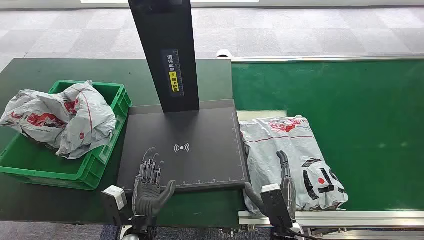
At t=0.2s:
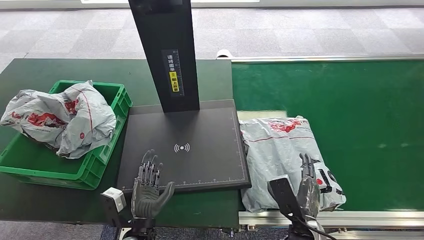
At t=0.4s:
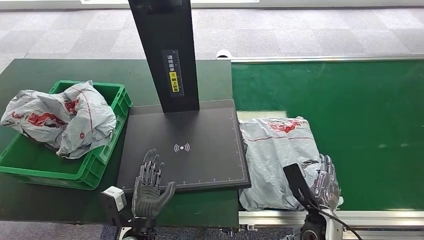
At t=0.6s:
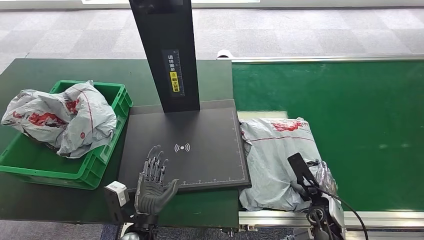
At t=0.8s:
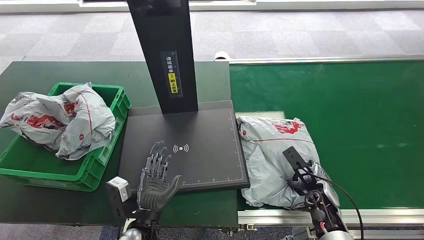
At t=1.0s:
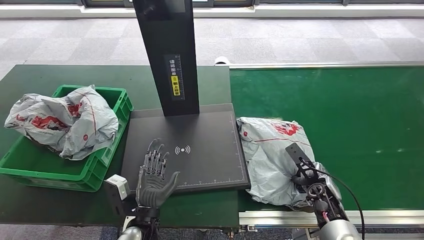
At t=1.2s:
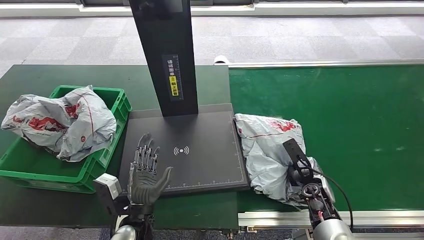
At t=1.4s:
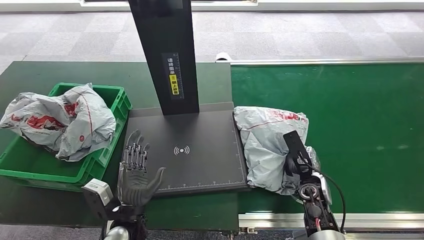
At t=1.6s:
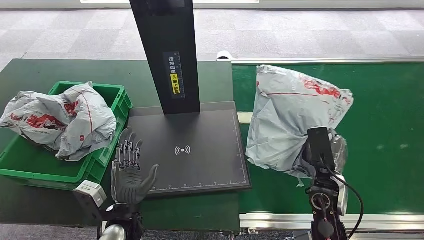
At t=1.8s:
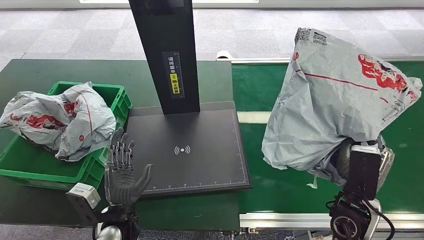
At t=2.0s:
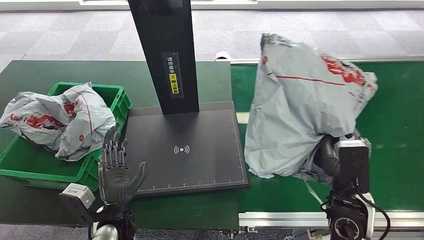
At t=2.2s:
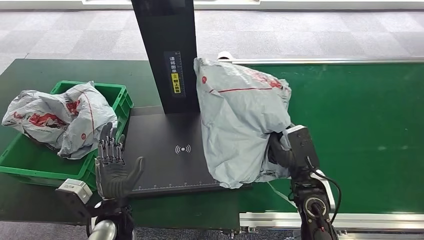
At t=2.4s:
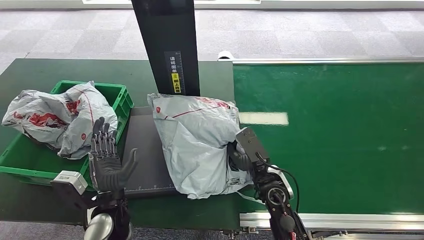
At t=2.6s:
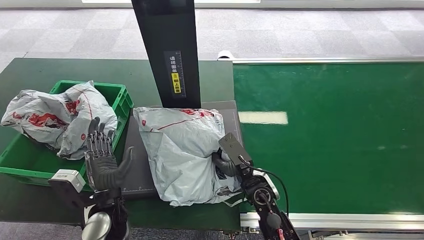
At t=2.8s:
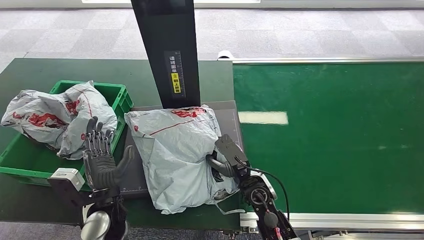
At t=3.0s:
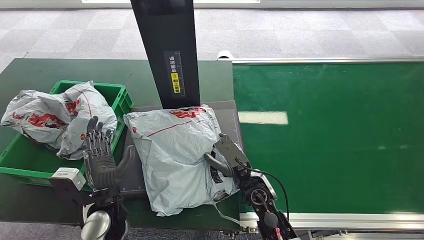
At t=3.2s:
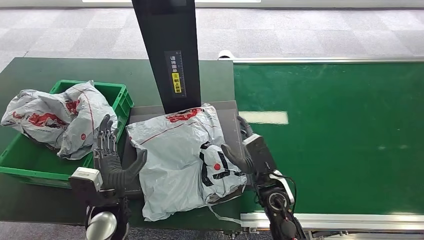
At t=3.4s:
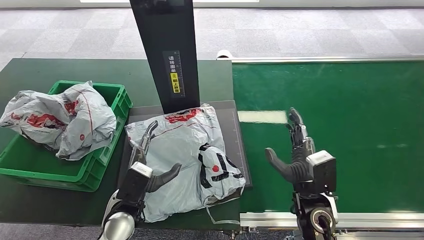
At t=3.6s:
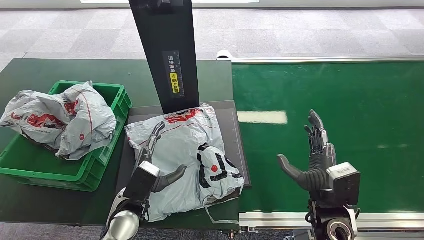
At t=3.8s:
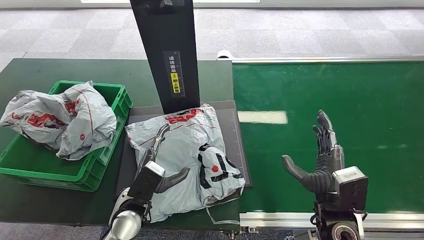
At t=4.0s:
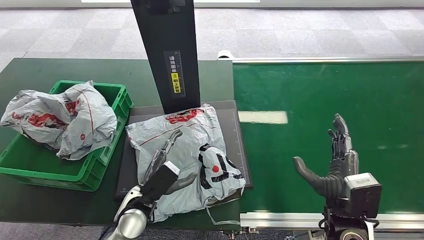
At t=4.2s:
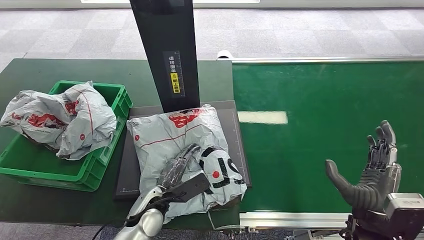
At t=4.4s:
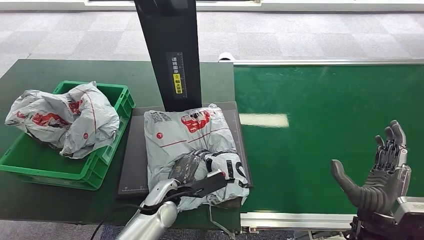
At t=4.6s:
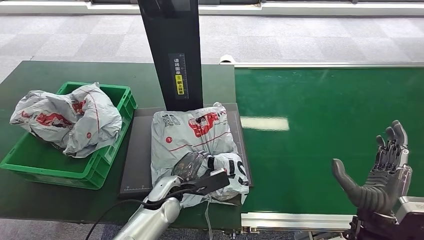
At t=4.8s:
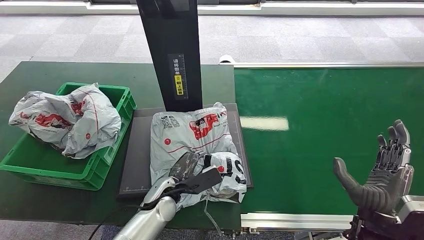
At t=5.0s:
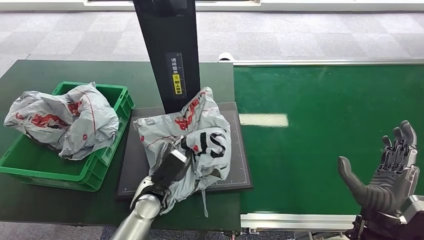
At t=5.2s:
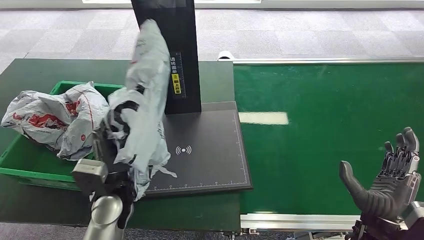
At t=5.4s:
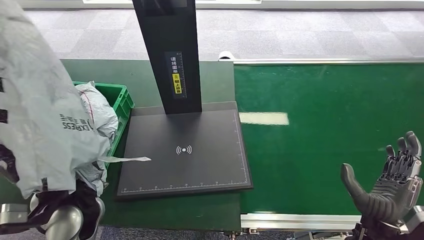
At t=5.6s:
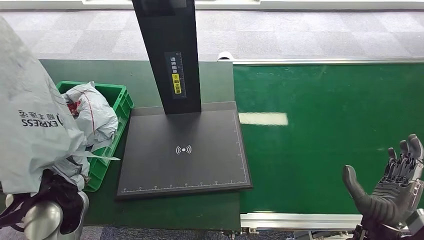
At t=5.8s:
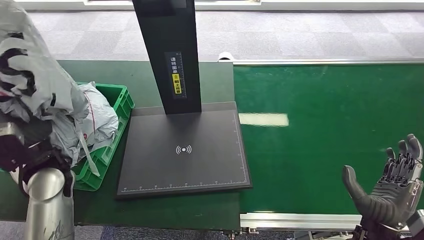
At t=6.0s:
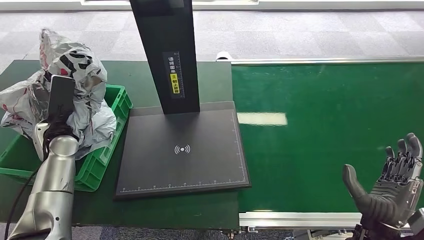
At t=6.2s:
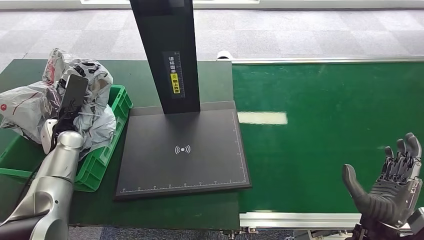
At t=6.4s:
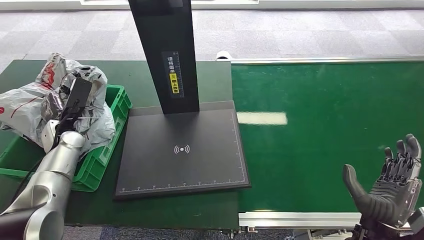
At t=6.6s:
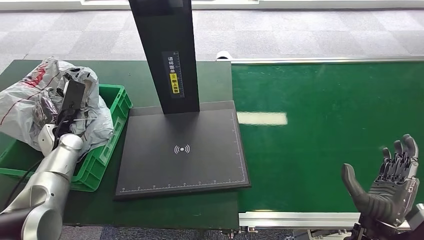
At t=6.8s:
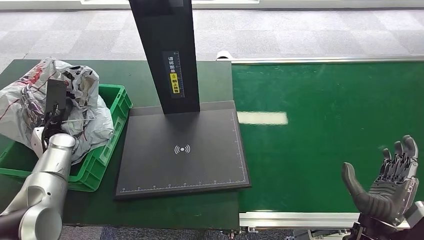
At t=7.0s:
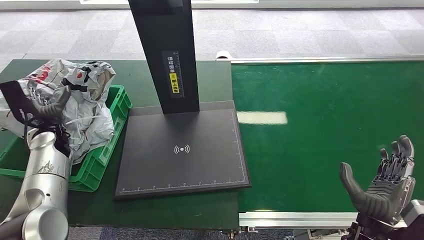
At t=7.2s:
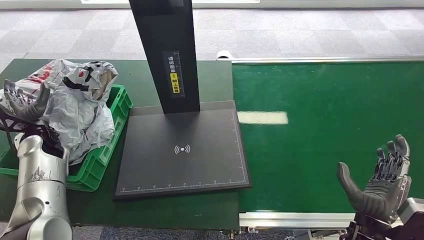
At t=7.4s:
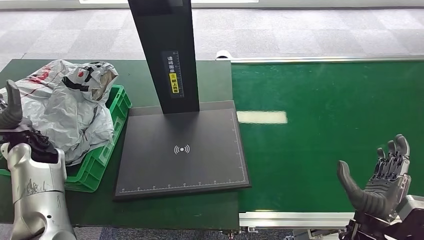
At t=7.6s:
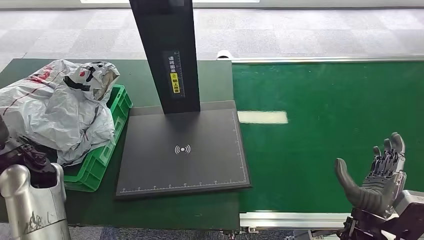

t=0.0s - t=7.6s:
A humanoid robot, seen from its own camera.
Step, t=0.0s - t=2.0s: Pick up the package from the conveyor belt.
Step, t=2.2s - t=4.0s: Place the package onto the inbound machine.
Step, t=4.4s - t=5.8s: Pick up the package from the inbound machine.
Step, t=6.0s - t=7.4s: Place the package into the parcel locker.
